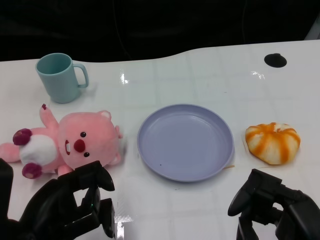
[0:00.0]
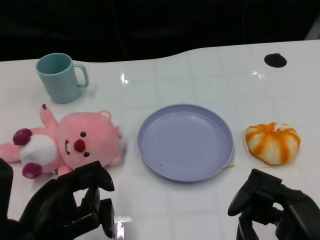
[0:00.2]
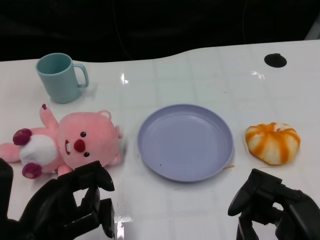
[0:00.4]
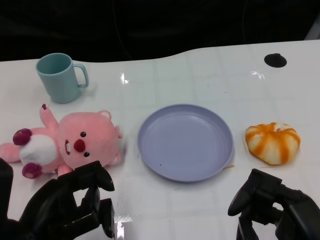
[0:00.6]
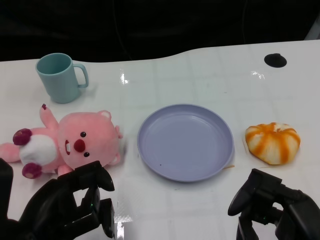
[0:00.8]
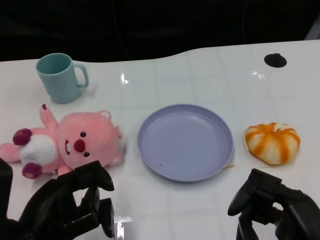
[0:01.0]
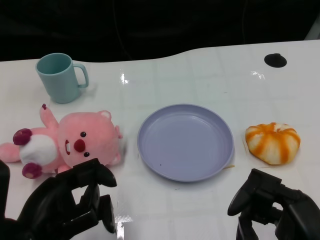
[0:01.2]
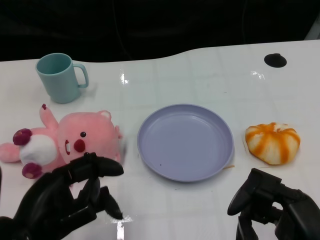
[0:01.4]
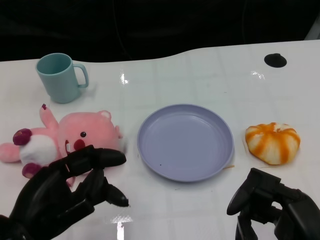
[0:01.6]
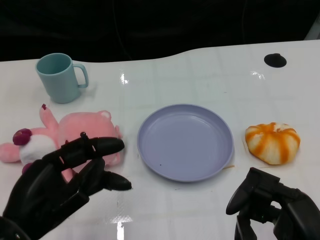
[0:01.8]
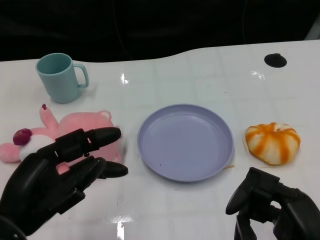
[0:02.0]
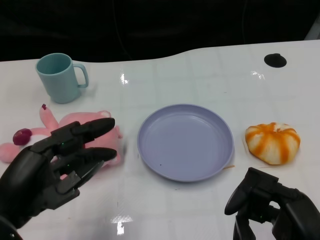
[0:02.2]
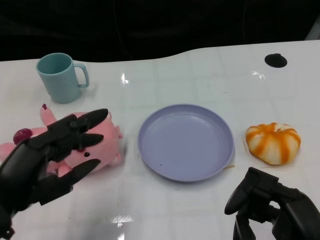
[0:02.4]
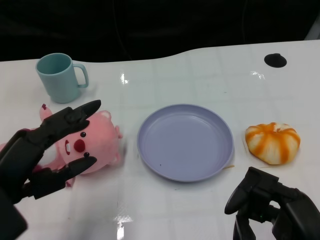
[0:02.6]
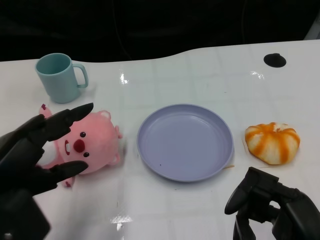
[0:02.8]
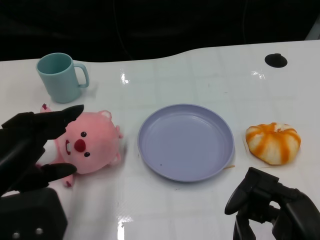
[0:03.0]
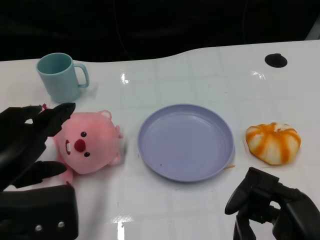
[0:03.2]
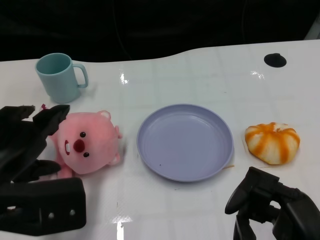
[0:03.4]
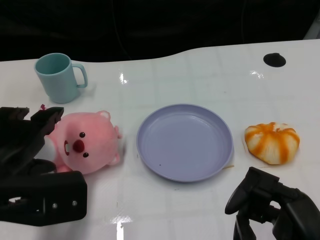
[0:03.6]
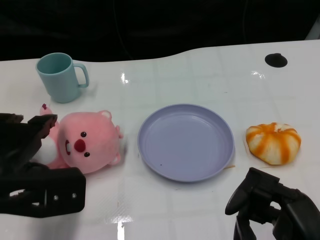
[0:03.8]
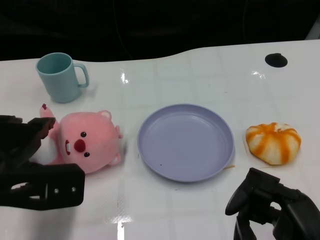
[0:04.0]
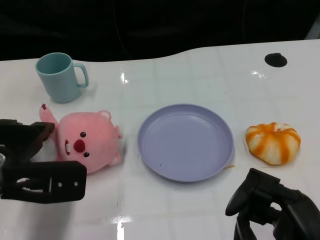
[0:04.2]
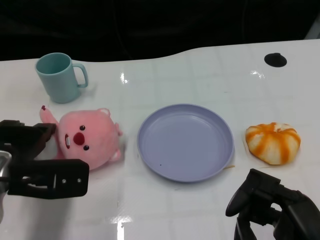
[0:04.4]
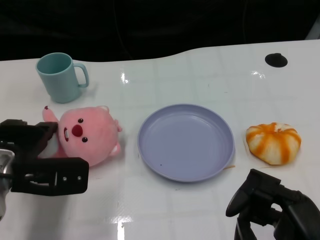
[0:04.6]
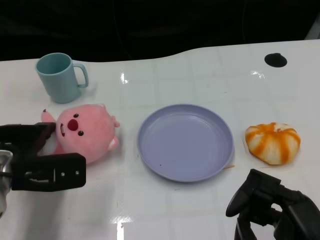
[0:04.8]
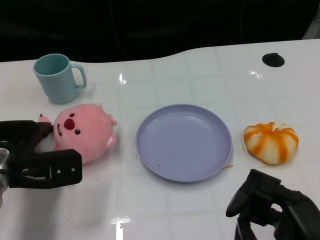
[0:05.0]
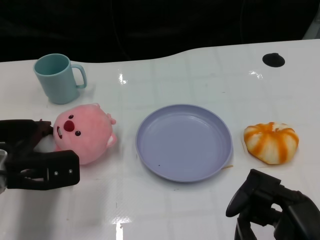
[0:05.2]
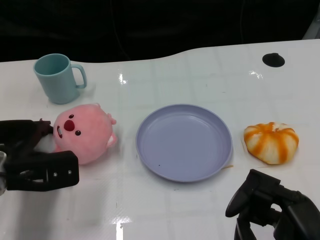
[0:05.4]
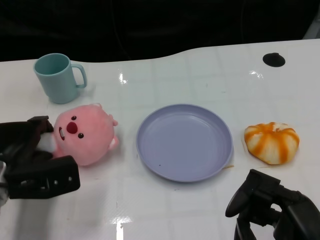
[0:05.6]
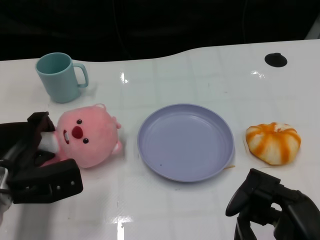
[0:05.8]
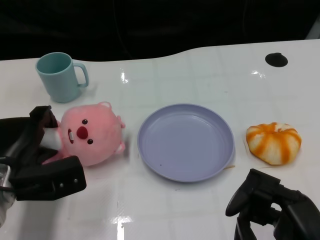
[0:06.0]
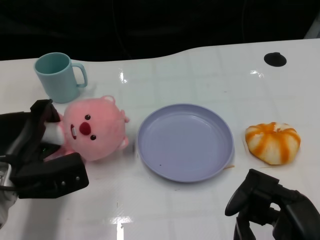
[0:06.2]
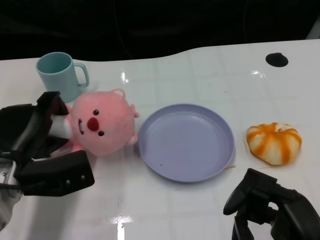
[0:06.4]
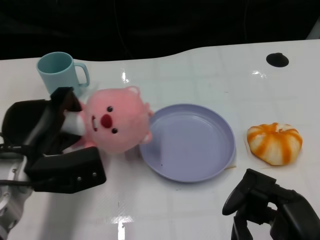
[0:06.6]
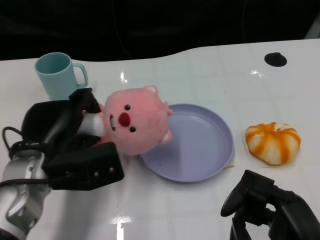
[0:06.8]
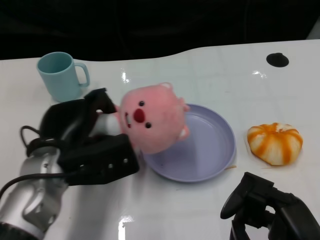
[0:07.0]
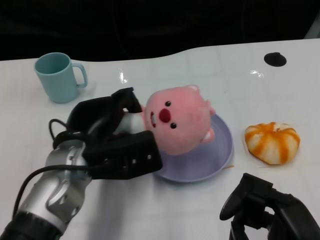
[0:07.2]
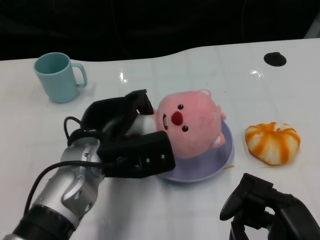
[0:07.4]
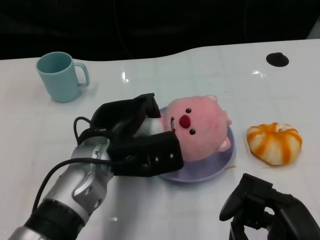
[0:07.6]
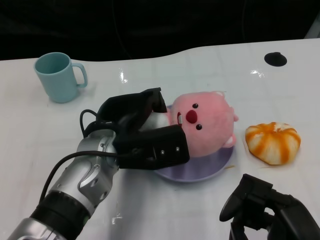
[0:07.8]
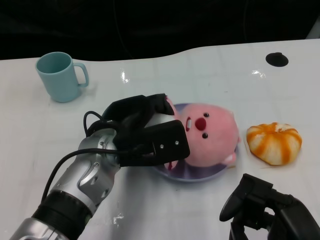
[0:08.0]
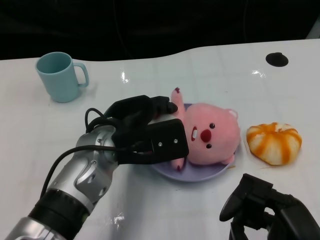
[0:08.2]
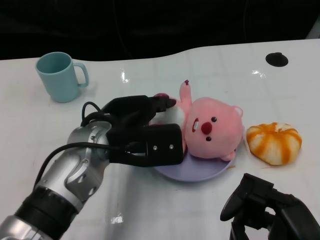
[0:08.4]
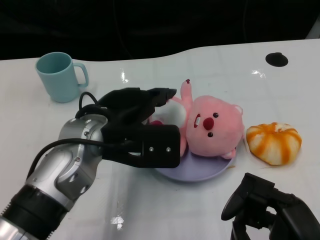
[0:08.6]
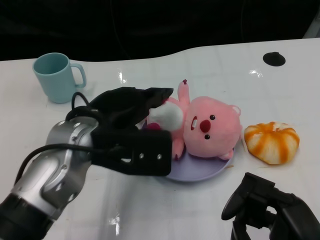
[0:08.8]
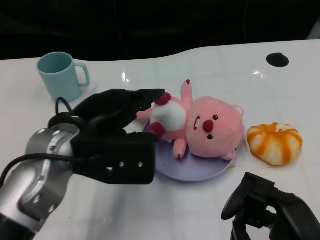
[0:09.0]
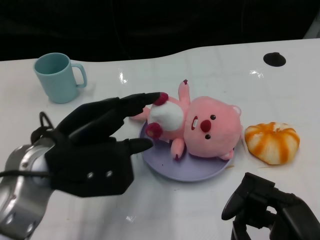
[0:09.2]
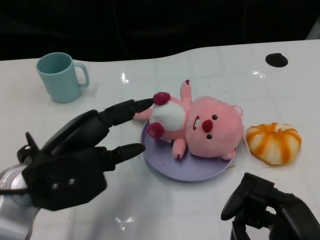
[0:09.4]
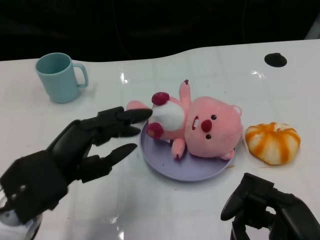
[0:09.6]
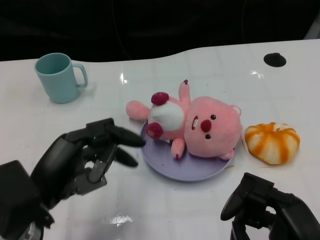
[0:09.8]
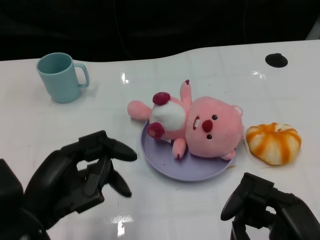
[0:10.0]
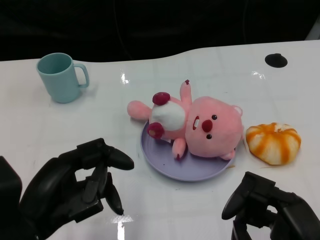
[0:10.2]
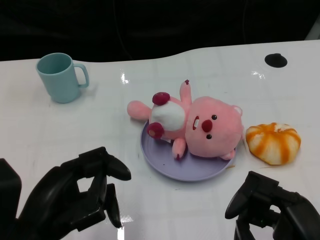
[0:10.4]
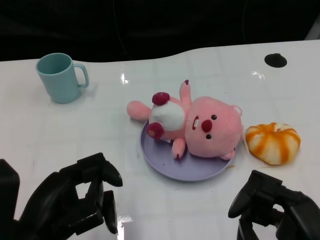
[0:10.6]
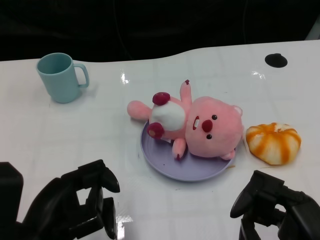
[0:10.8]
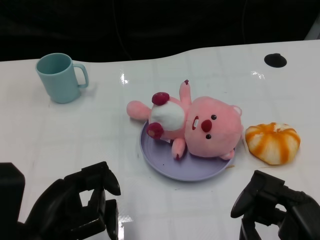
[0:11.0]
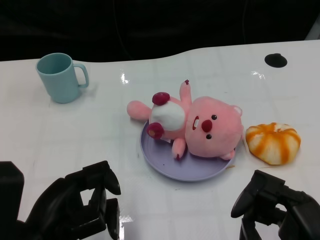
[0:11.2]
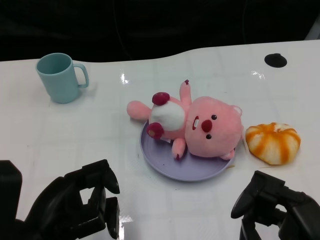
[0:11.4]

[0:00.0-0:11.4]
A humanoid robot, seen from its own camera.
Task of the whole recording: Pick up the doll on one side of the plate and place it into the plate.
Step, 0:01.0 to 0:06.0: Grasp the pink doll with the left gripper.
Step, 0:06.2 to 0:08.6: Place the pink doll into the plate with the left gripper.
0:01.4 to 0:02.8: The left hand changes place by approximately 5 cm.
0:02.8 to 0:04.2: The left hand travels forward by roughly 10 cm.
0:04.2 to 0:05.6: The left hand heads downward, covering roughly 5 cm.
0:05.6 to 0:07.2: The left hand moves to the right and upward, some 15 cm.
0:08.6 to 0:10.0: The left hand shifts roughly 15 cm backward and to the left.

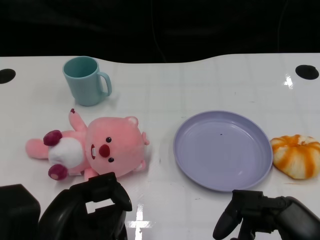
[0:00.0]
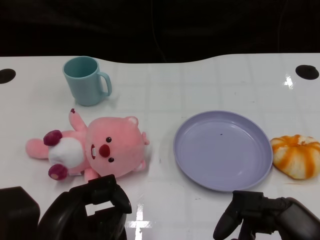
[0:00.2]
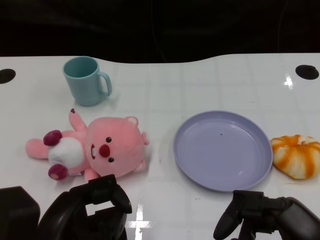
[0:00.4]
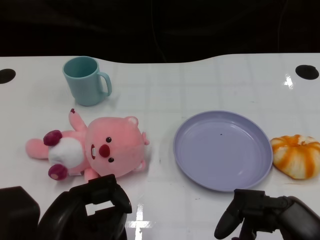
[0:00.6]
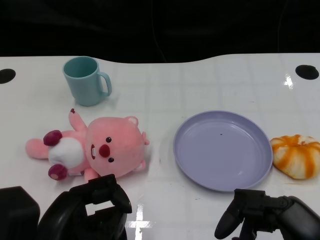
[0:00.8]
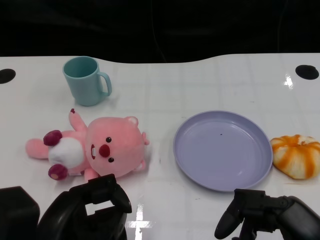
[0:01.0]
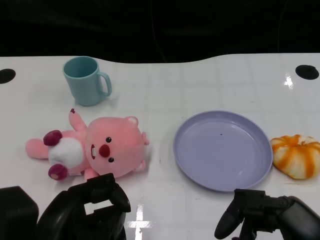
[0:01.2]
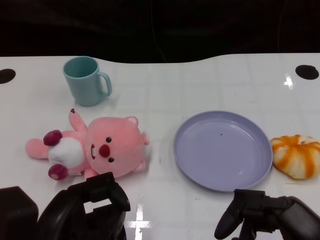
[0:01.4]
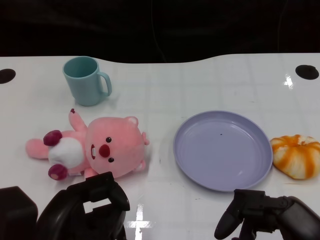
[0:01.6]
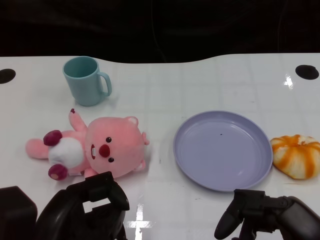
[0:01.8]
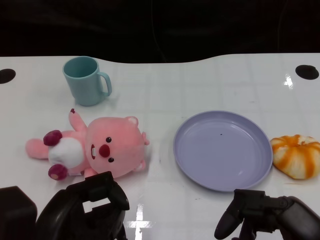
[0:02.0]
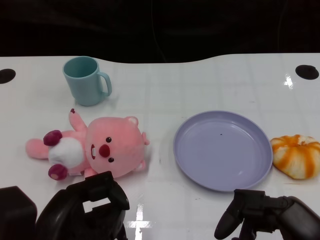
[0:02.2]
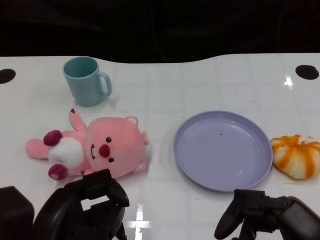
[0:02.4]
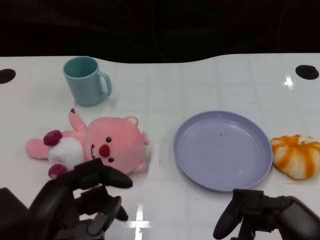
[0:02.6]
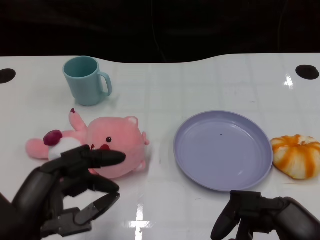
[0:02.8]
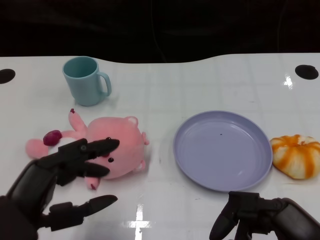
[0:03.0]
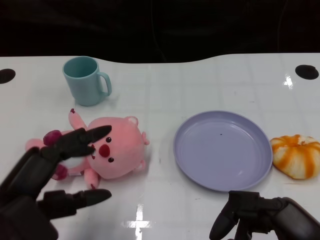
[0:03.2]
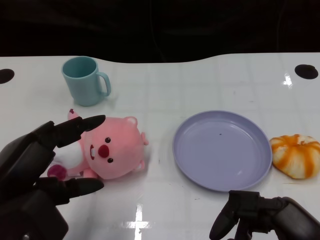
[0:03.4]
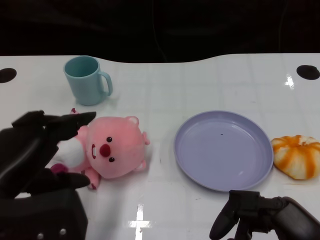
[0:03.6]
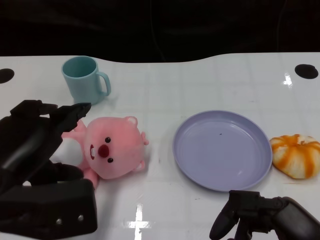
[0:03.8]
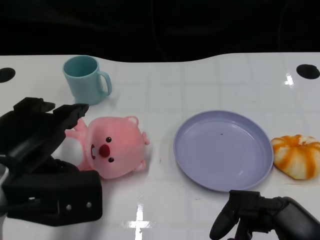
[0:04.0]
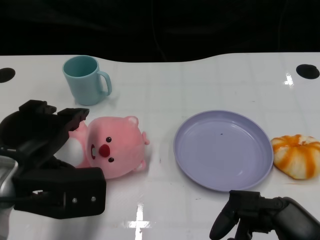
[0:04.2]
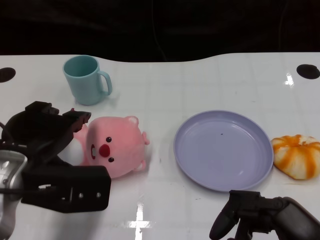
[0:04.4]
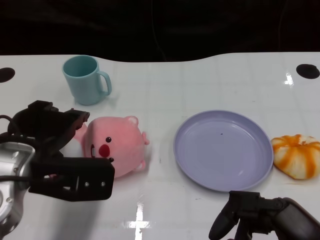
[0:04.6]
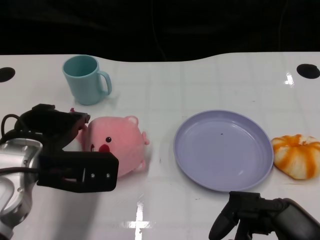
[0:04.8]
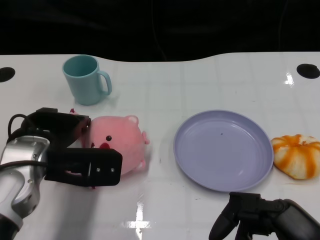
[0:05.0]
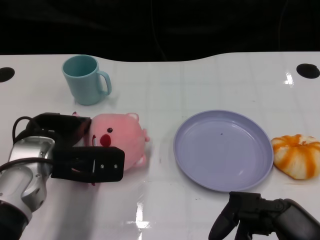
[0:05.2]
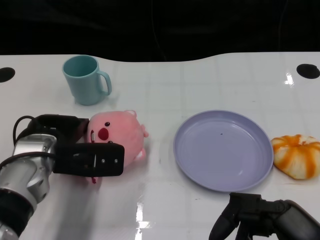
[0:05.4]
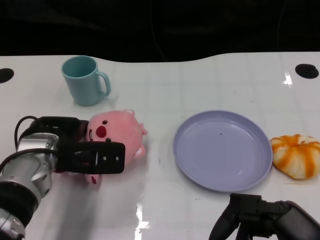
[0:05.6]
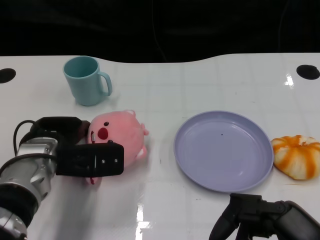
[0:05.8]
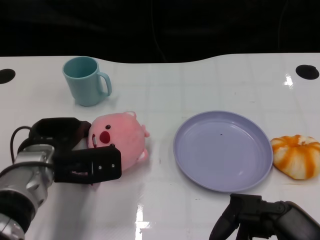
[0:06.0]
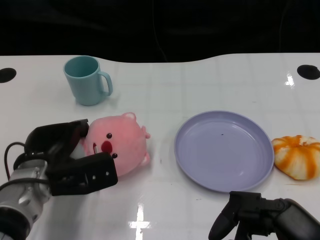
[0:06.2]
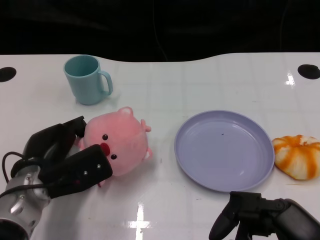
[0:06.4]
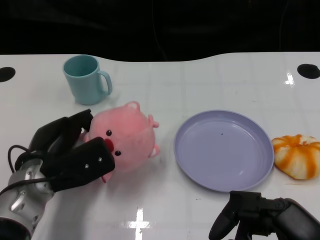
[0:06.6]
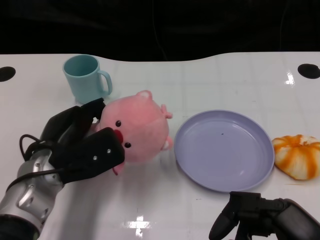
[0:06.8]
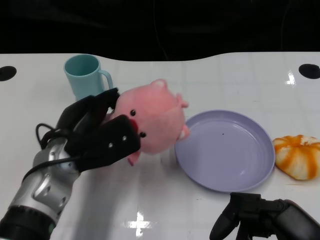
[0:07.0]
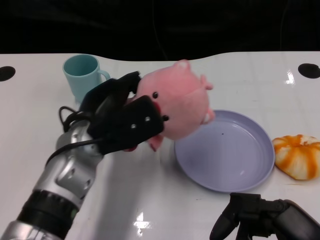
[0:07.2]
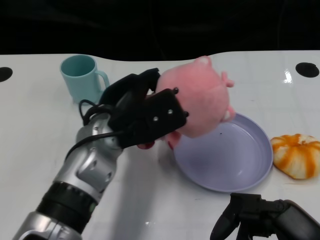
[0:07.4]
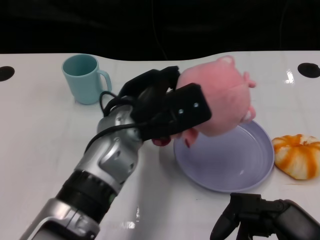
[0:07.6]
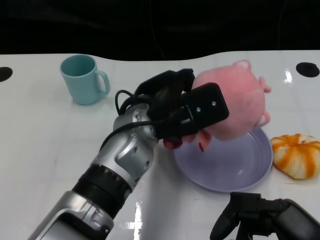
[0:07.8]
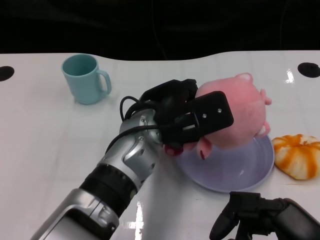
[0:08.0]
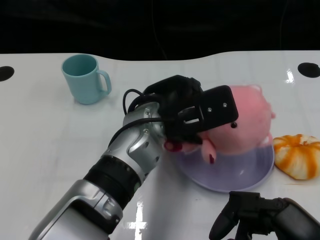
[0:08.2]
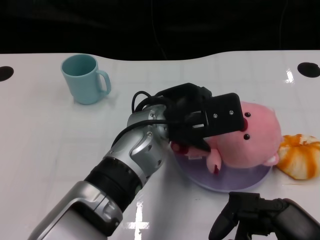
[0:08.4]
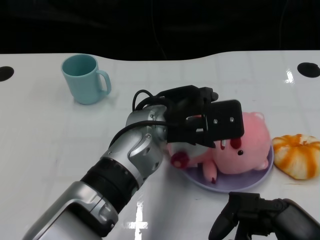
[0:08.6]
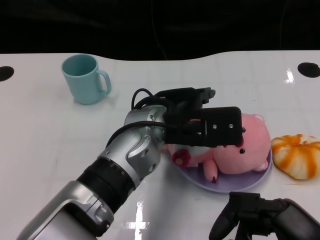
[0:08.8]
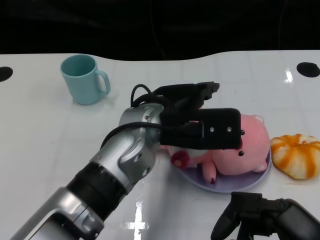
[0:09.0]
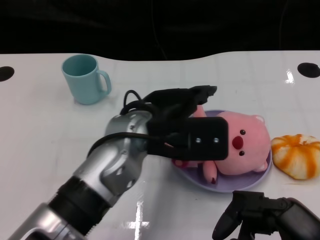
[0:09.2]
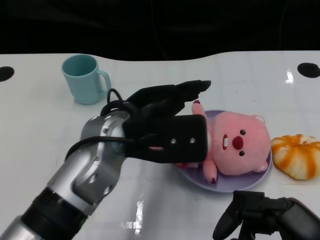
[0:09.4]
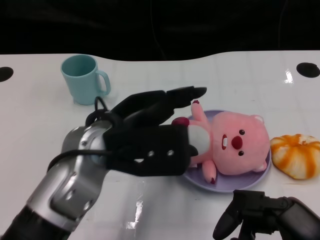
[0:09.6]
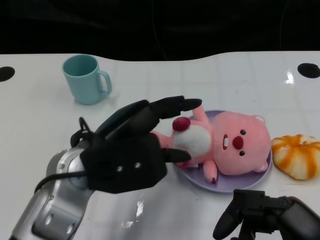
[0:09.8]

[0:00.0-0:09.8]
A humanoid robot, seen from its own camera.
Task of the whole recording: Pick up the doll on one side of the plate and place it into the plate.
Step, 0:01.4 to 0:06.4: Grasp the pink doll with the left gripper.
Step, 0:06.6 to 0:08.6: Place the pink doll into the plate with the left gripper.
0:02.8 to 0:04.2: The left hand is displaced forward by some 10 cm.
0:04.2 to 0:05.6: The left hand is displaced forward and downward by about 10 cm.
0:07.0 to 0:08.4: The left hand moves to the right, some 15 cm.
0:08.4 to 0:09.8: The left hand goes some 10 cm to the left and backward.

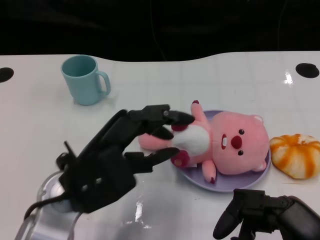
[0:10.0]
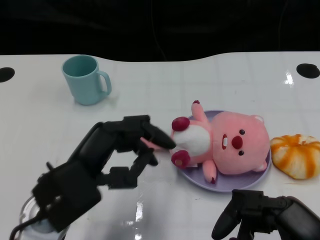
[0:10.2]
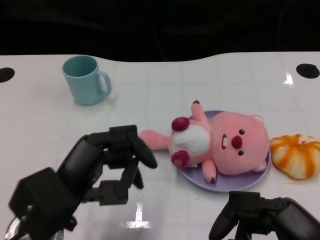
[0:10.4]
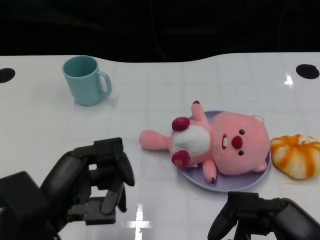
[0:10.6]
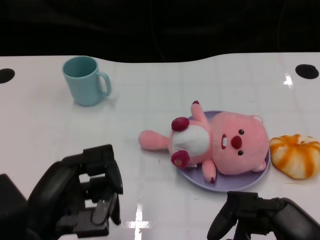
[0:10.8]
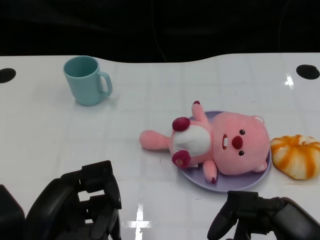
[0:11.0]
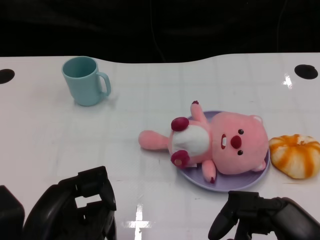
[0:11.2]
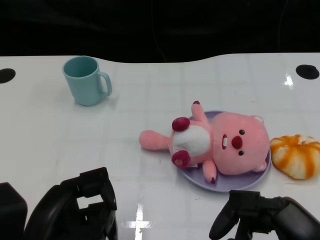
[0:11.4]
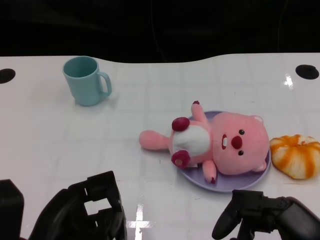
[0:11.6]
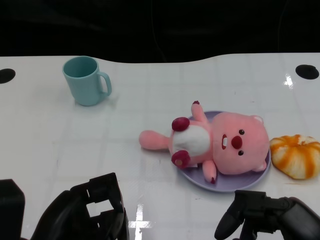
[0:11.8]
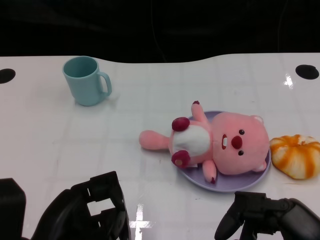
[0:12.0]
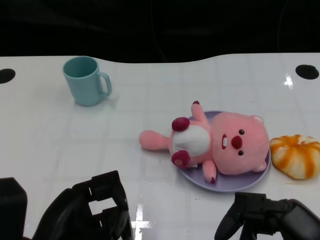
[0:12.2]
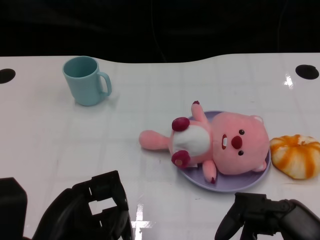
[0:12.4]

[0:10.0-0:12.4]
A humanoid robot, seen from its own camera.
Task of the whole recording: Pick up the doll on one side of the plate and place it into the plate.
0:10.0 to 0:11.2: The left hand is displaced backward and to the left by roughly 10 cm.
0:11.2 to 0:12.4: The hands move only a little.
